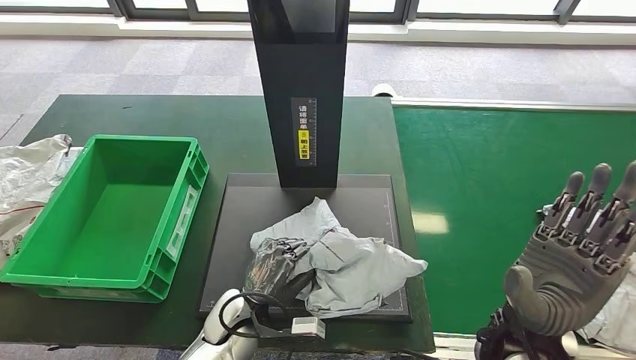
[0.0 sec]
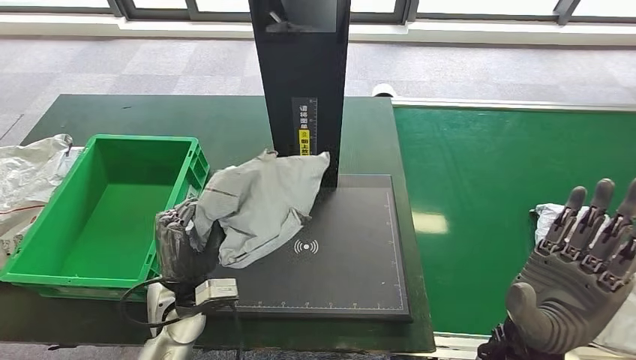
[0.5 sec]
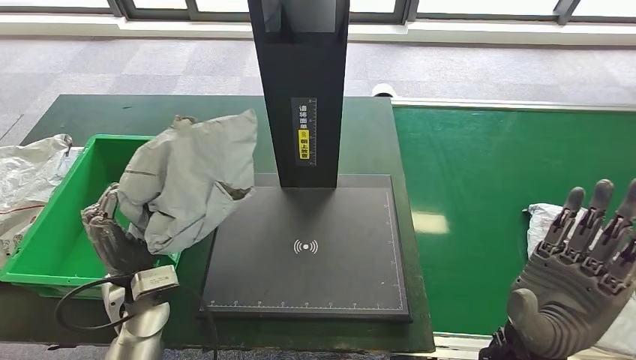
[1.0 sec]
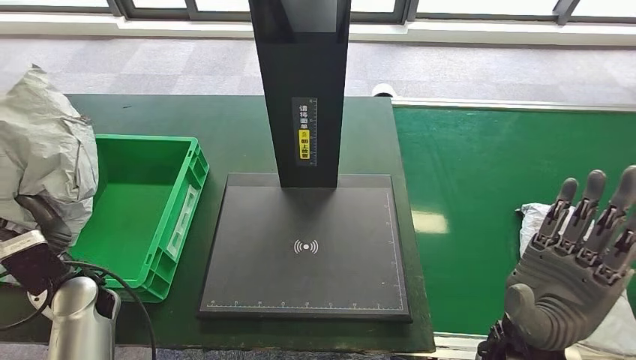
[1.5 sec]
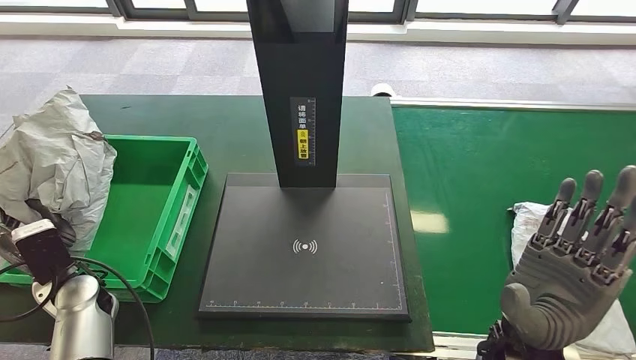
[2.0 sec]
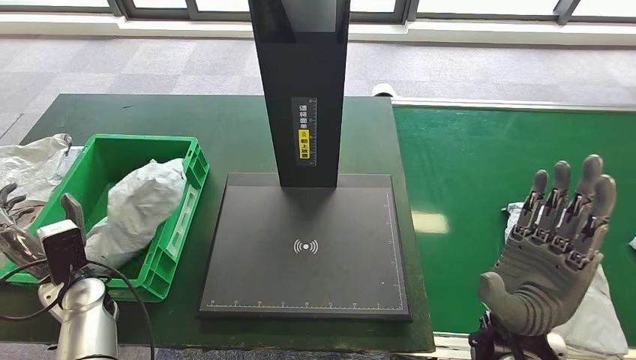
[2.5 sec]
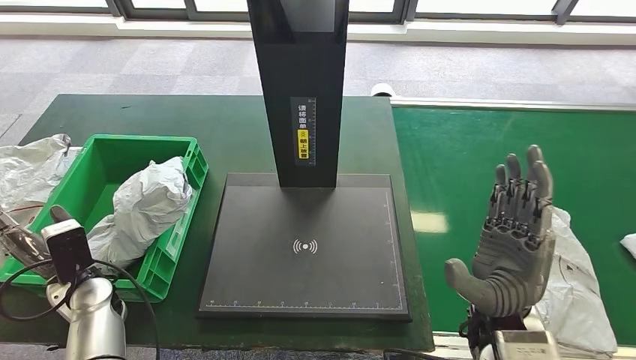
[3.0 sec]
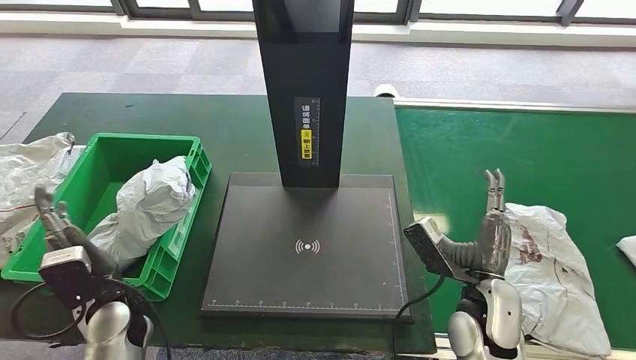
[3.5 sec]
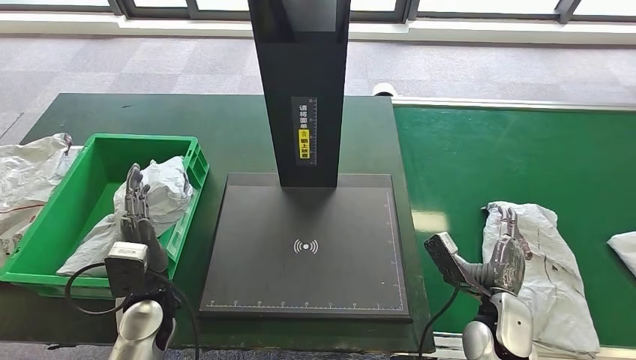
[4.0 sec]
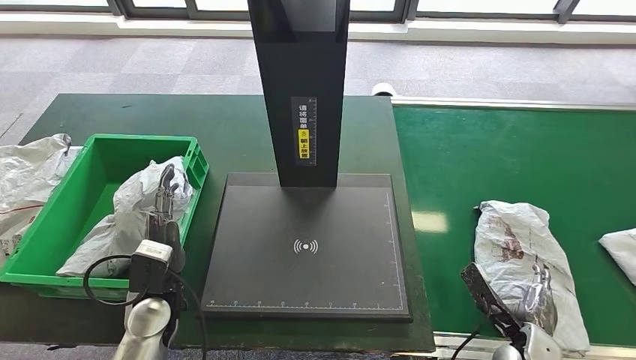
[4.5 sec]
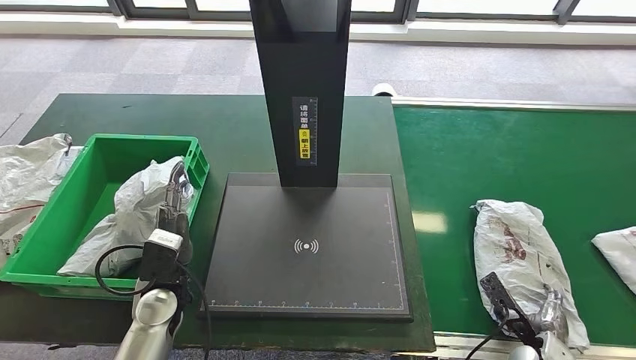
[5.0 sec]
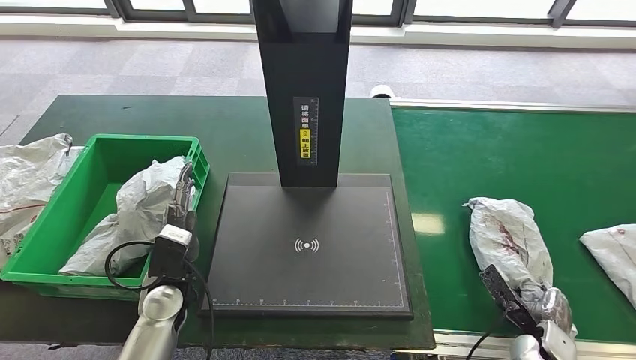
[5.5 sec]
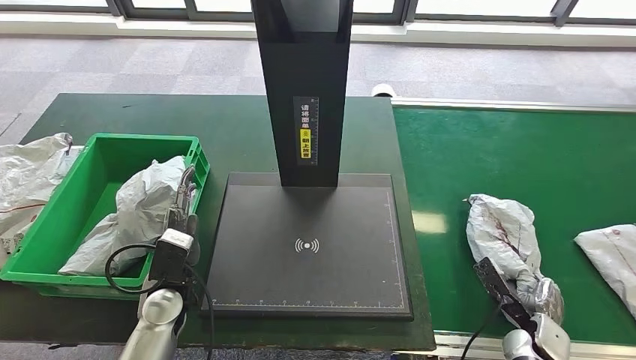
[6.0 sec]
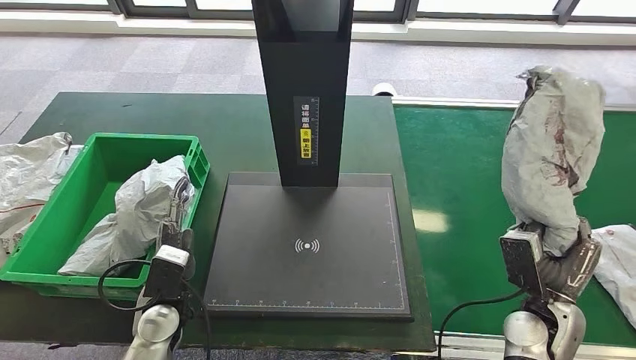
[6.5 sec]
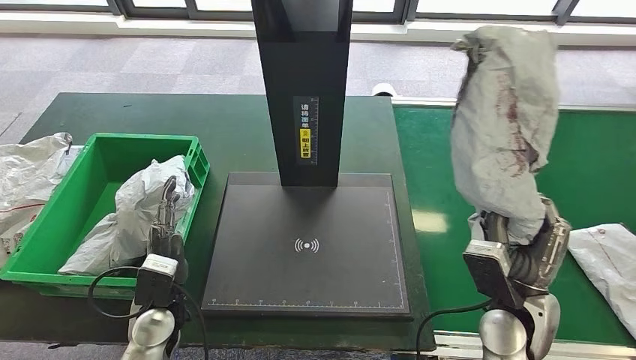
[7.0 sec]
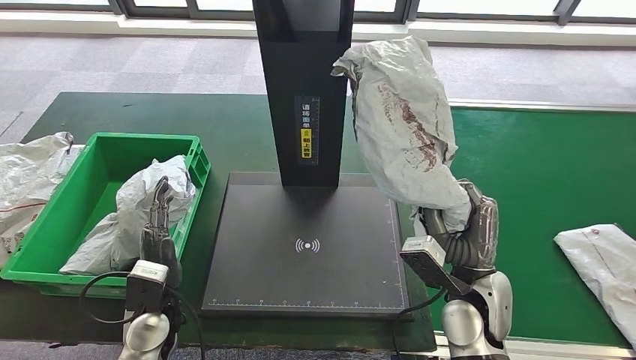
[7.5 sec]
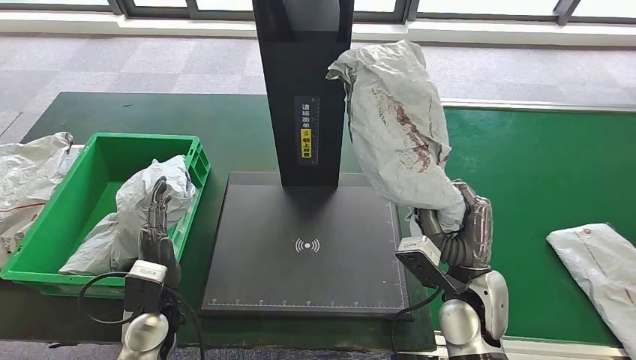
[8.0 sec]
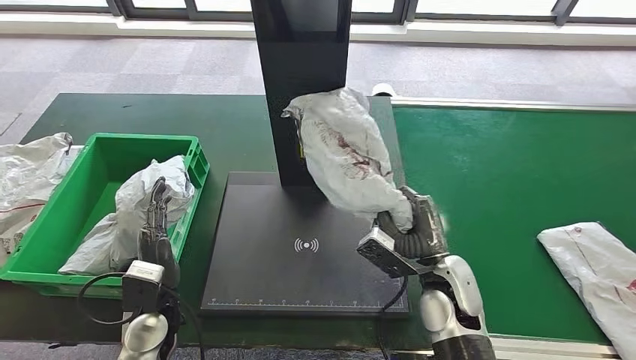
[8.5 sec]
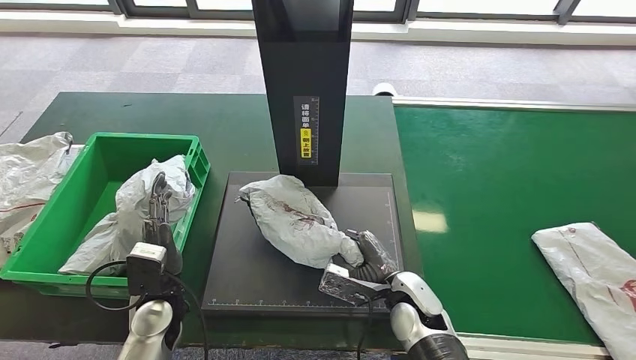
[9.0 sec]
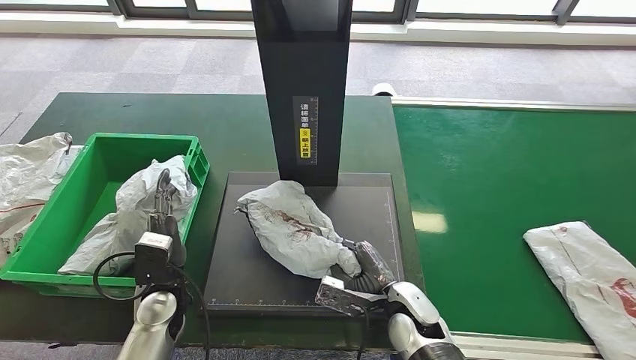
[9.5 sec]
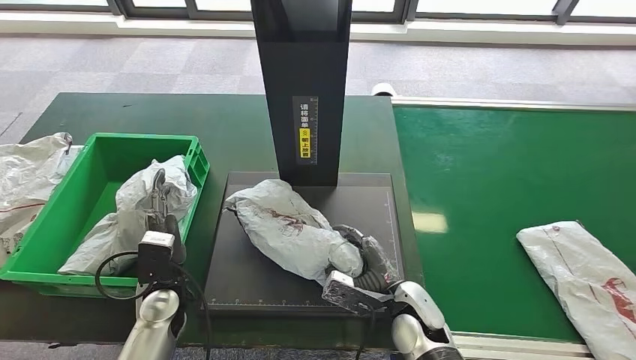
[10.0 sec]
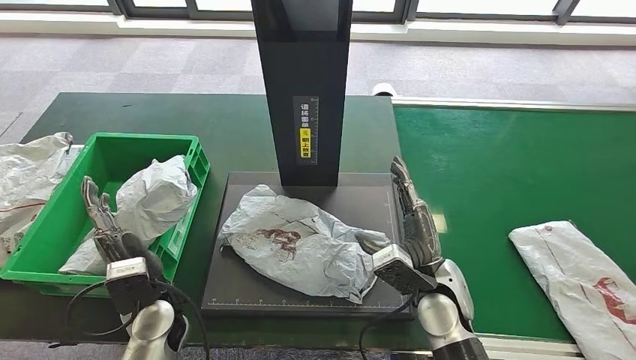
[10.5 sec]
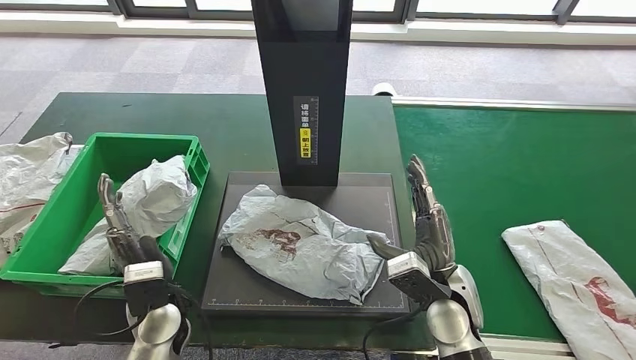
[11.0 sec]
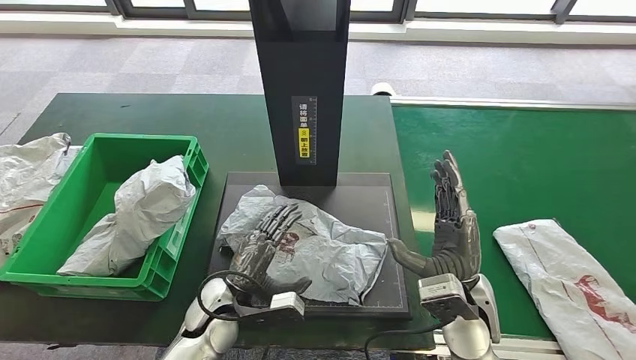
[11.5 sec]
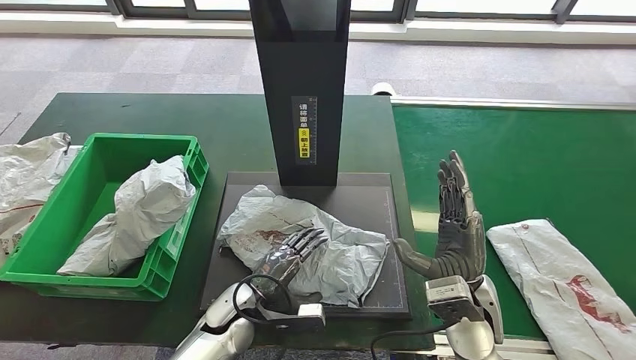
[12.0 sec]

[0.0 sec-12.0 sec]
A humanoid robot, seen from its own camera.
Step, 1.5 sec to 4.0 sec: Put the parcel inside the courier box.
Step, 5.5 sec to 7.5 sec: Pick up the parcel from the conveyor belt.
Step, 8.0 sec to 11.5 sec: Place the parcel onto the inbound machine.
4.0 sec to 6.0 sec: The right hand travels to the right and downward by approximately 10 cm.

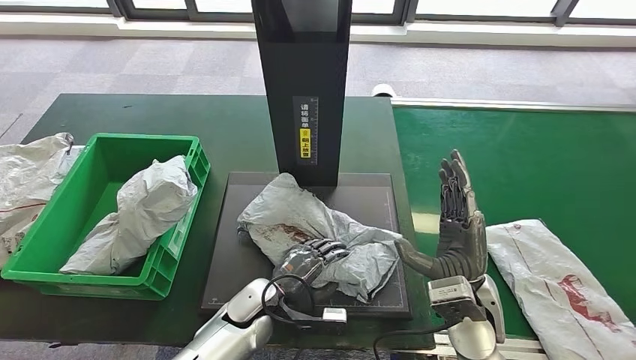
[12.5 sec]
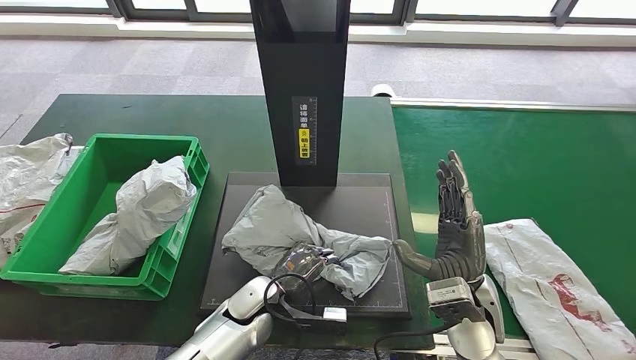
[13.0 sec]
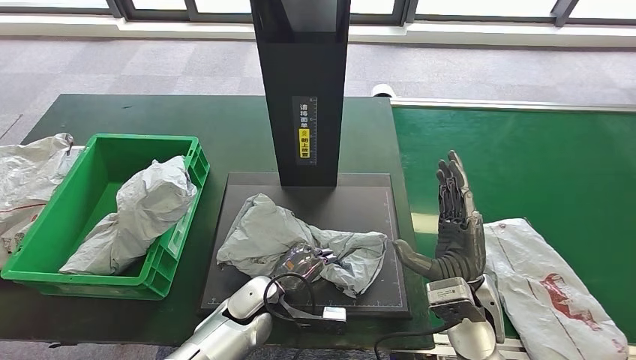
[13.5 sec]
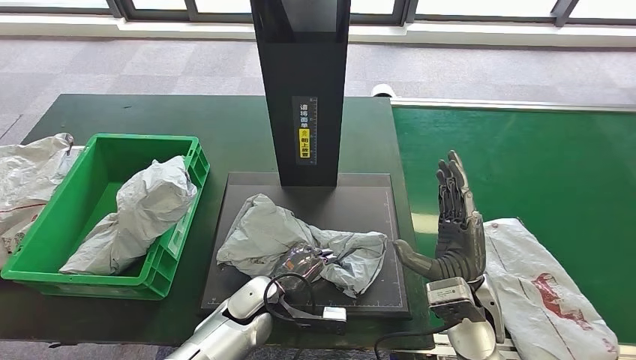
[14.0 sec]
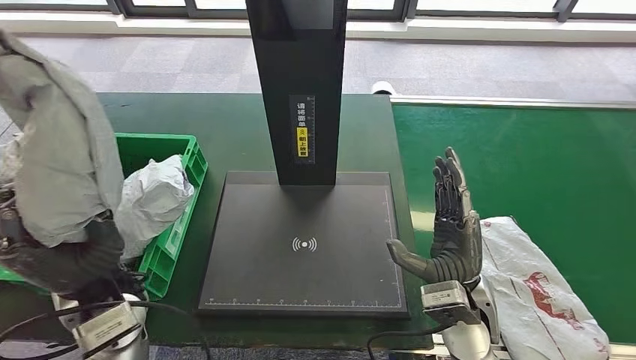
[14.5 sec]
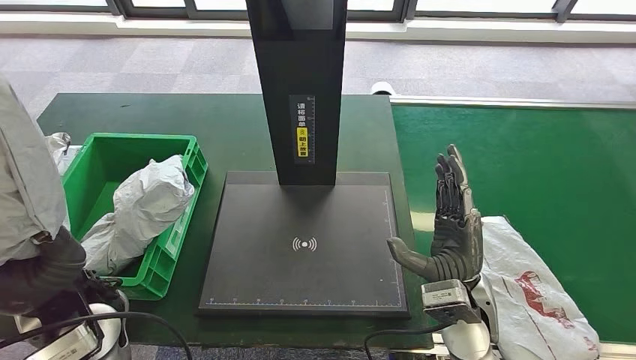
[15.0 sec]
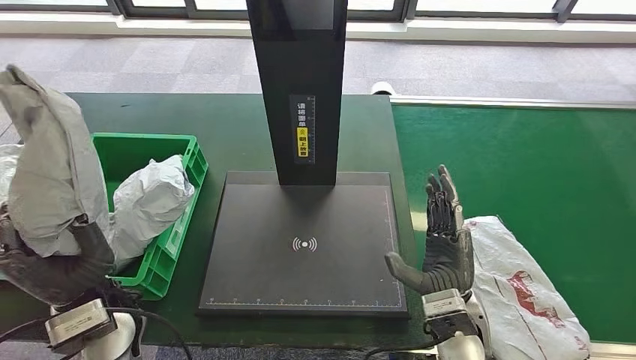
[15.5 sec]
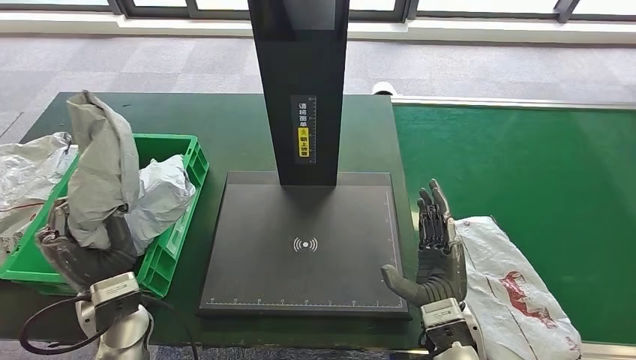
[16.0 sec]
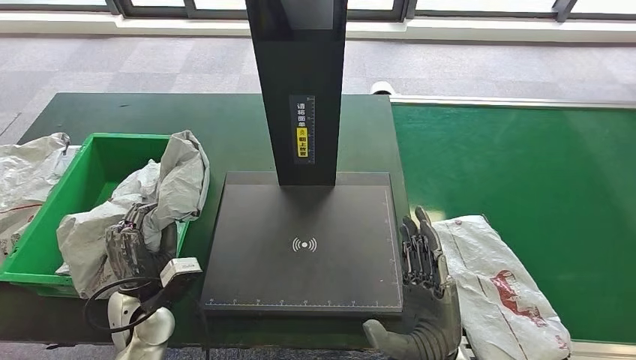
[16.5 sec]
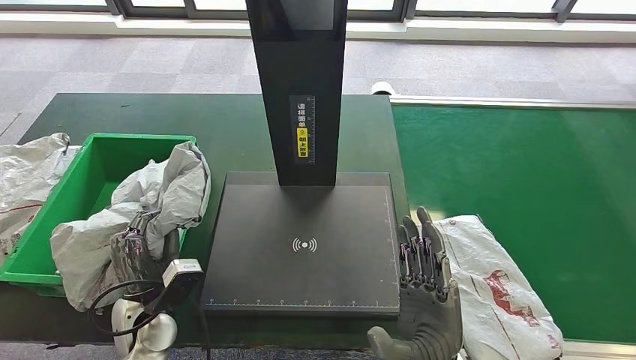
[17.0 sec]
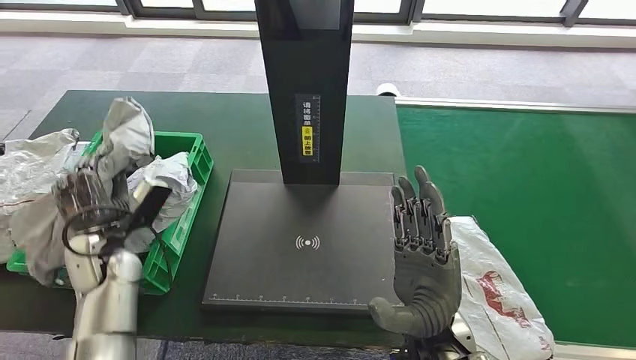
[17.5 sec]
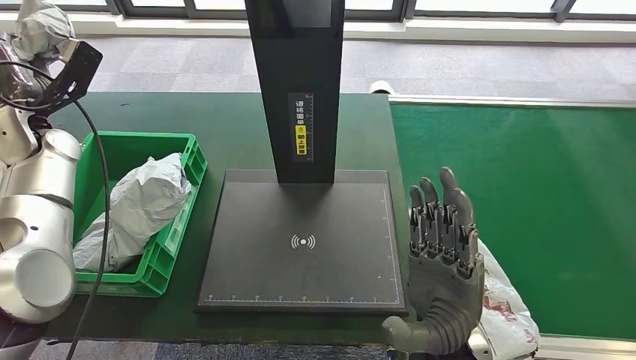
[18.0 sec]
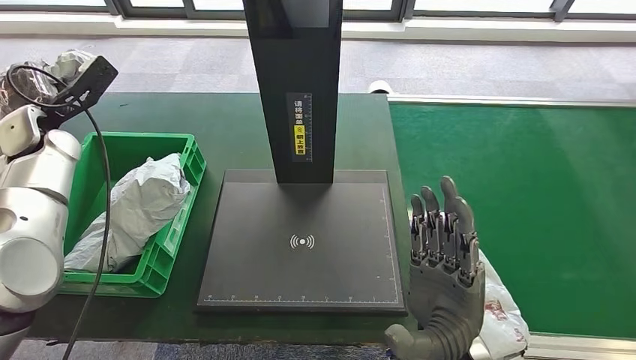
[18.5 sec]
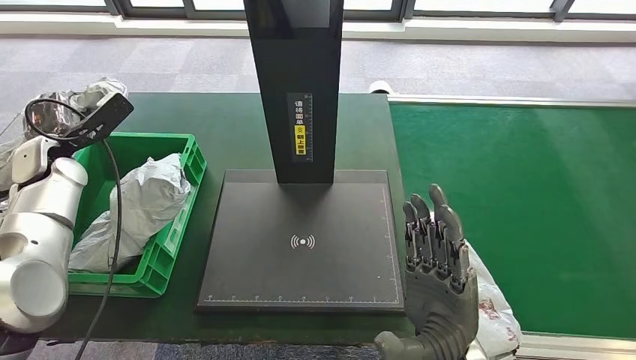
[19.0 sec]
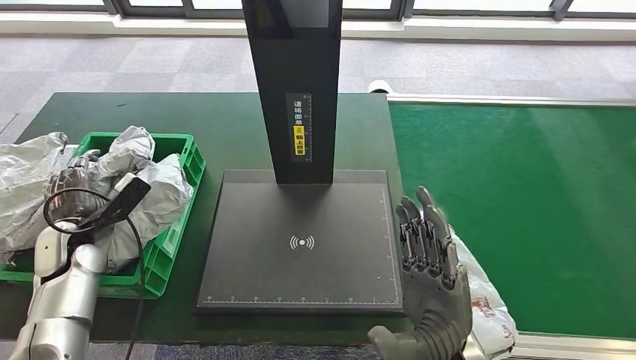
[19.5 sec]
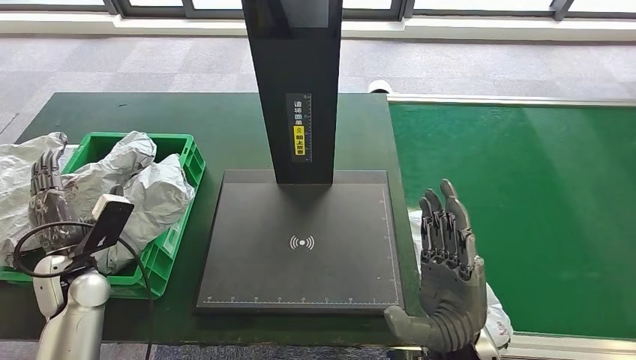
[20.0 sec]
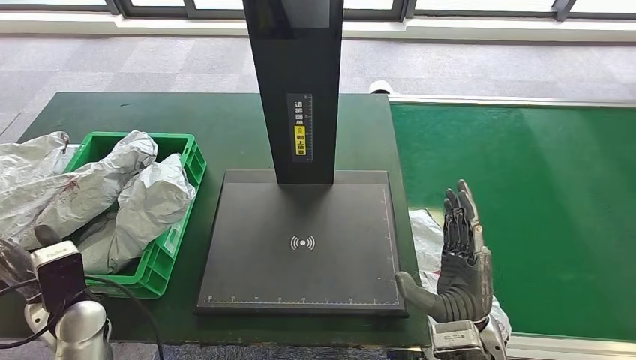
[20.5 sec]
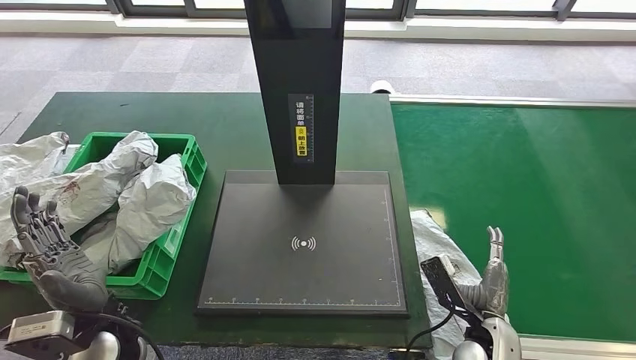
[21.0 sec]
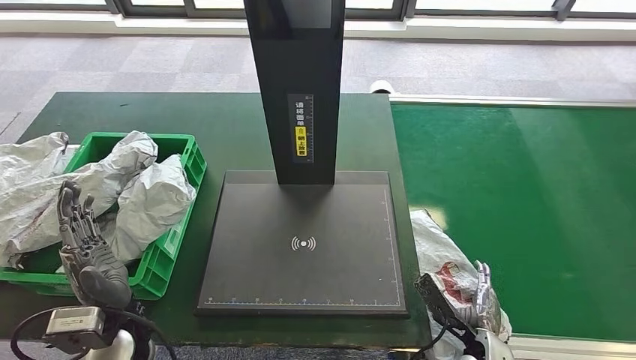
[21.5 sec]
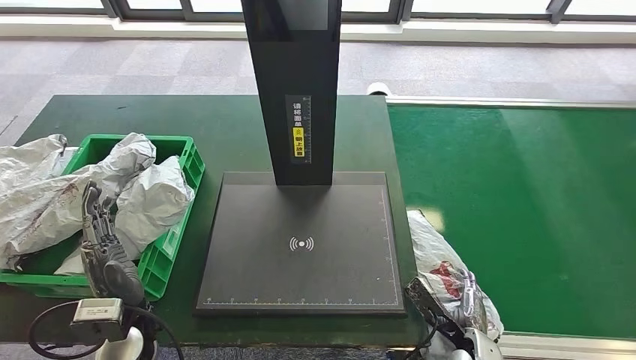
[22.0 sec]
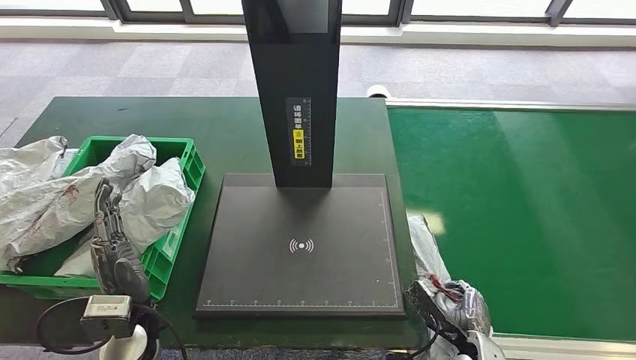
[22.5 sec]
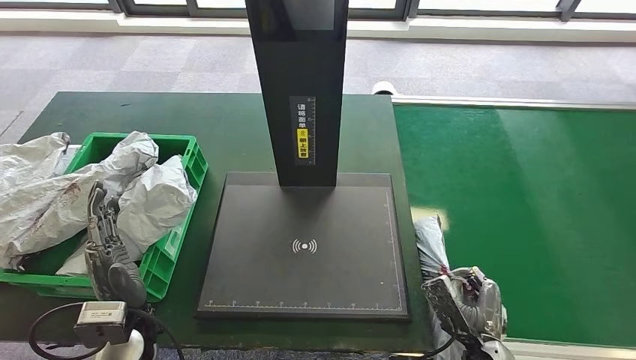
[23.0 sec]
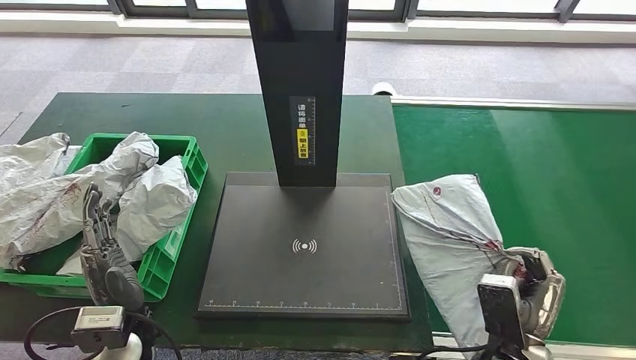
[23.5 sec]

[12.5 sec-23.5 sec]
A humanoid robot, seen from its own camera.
Step, 12.5 sec to 16.0 sec: Pick up the parcel from the inbound machine.
Step, 16.5 sec to 20.0 sec: Place the parcel into the delivery box.
20.0 sec to 21.5 sec: The left hand moves to the right and backward, about 15 cm; the right hand travels downward and to the right by roughly 20 cm.
21.5 sec to 23.5 sec: The right hand is displaced upward by approximately 10 cm.
